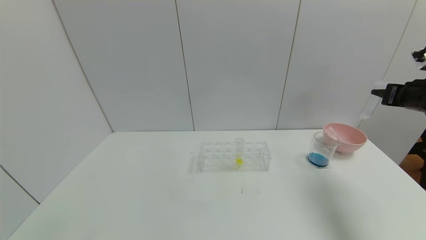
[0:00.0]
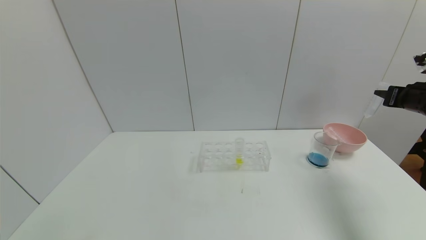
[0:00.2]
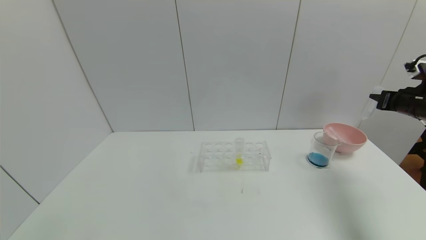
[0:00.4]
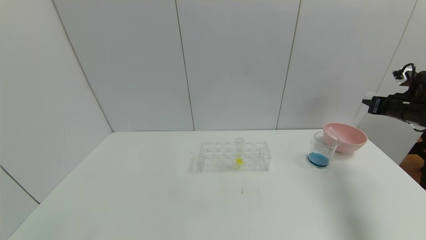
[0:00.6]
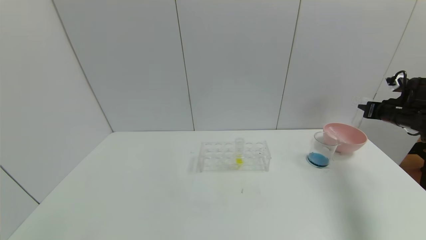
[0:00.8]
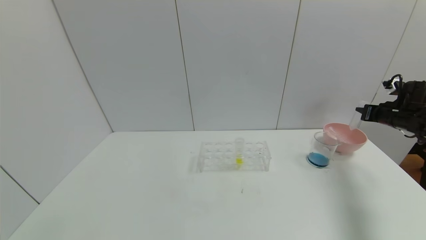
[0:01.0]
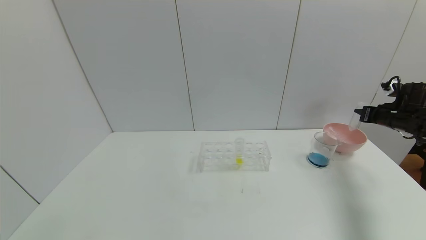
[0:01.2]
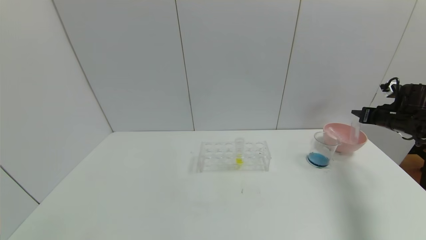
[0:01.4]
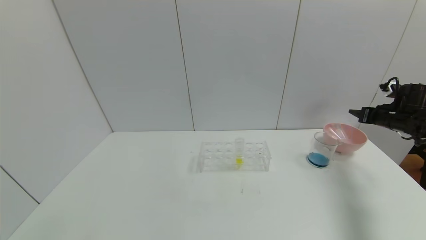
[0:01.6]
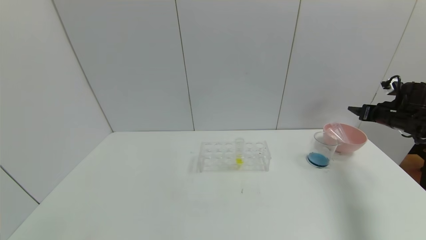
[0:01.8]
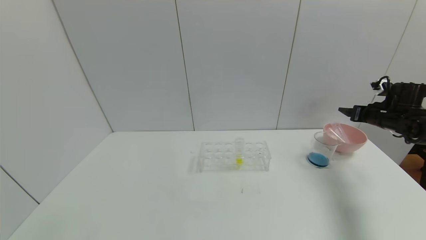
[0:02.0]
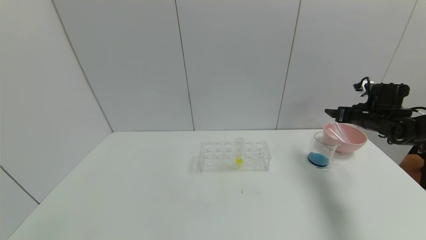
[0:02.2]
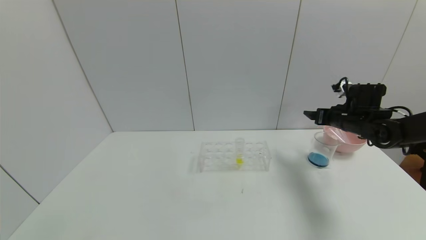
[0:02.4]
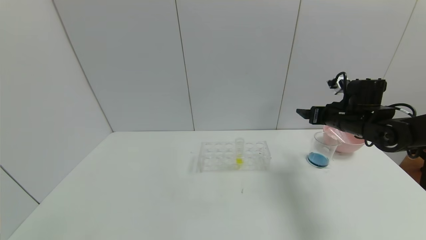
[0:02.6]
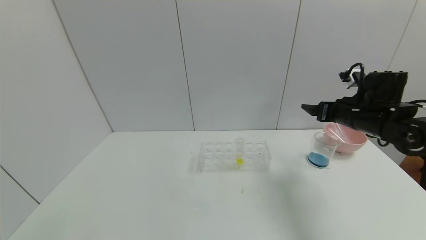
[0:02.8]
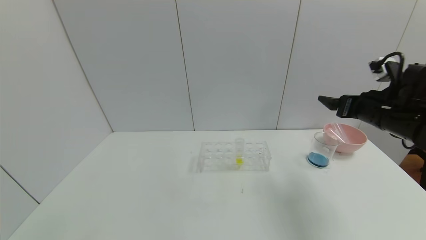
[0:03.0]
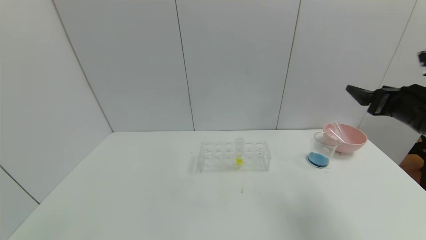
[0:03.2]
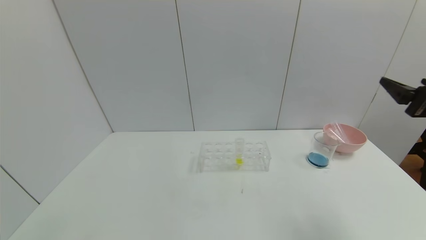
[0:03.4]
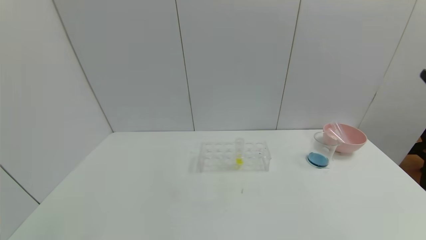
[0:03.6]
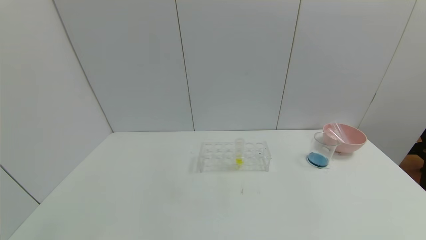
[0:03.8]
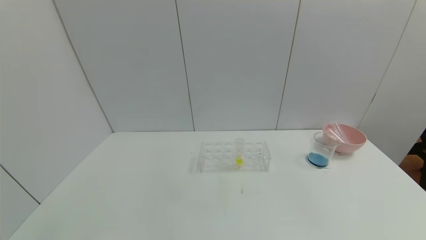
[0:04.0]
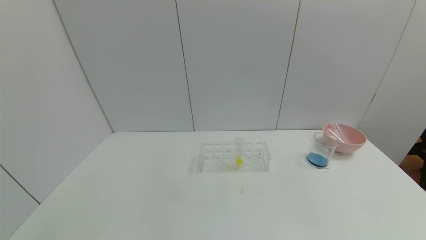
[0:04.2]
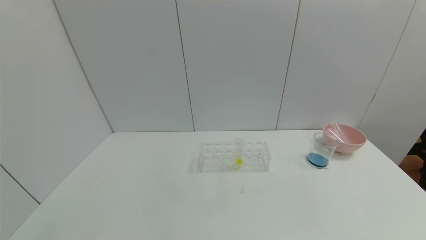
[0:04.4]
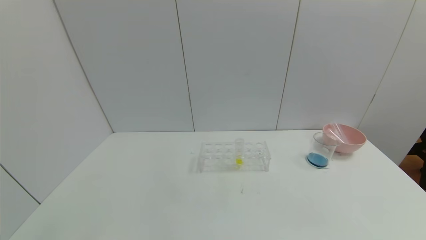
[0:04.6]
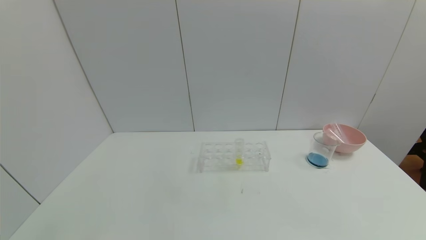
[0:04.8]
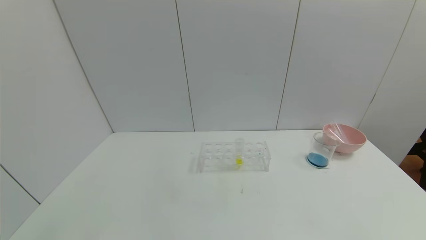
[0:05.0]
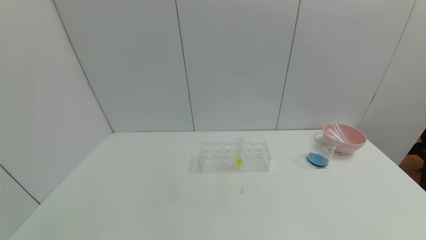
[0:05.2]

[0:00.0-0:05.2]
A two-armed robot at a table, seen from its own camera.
Task of the whole recording: pick up the test tube with red pigment and the test tube with blue pigment by grippers and pour them into the container.
0:00.0 to 0:01.8: The right gripper moves downward and forward, about 10 cm, and opens its fingers.
0:01.8 to 0:03.4: The right gripper goes roughly 25 cm backward, to the left and upward.
0:03.4 to 0:05.2: The right gripper goes roughly 30 cm backward and downward.
